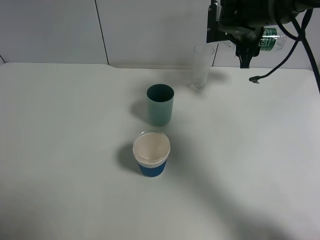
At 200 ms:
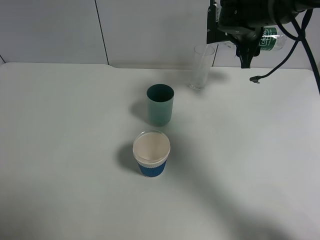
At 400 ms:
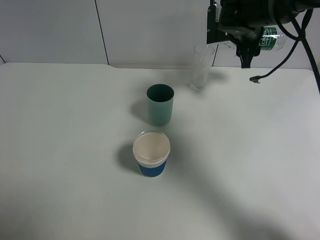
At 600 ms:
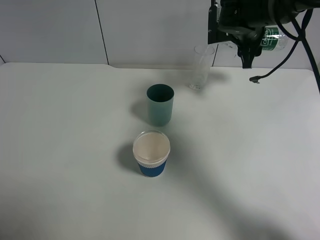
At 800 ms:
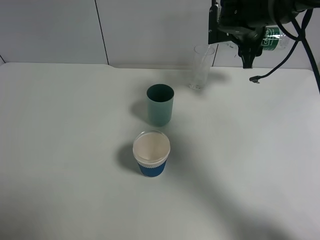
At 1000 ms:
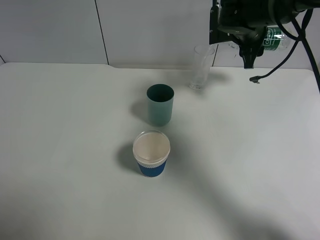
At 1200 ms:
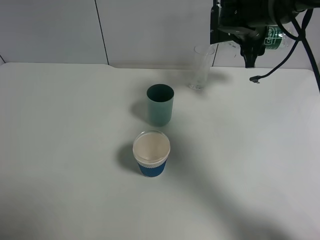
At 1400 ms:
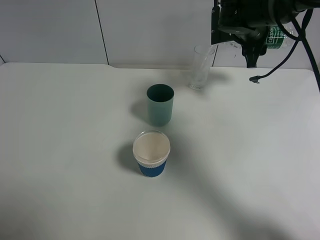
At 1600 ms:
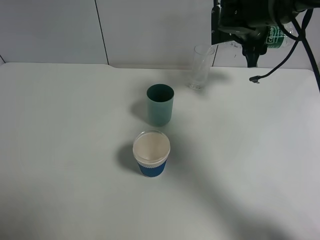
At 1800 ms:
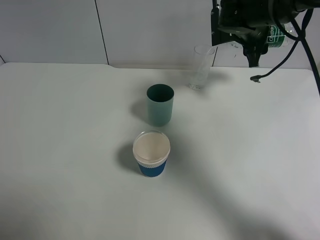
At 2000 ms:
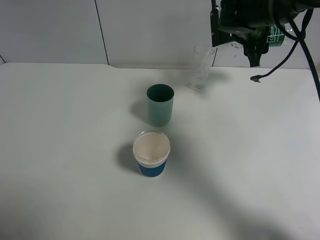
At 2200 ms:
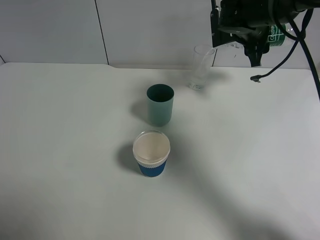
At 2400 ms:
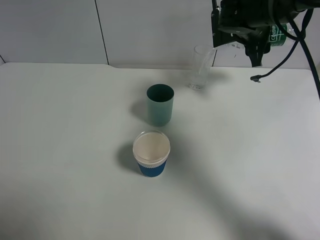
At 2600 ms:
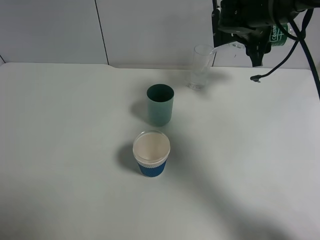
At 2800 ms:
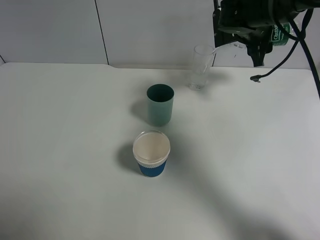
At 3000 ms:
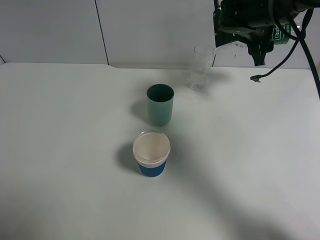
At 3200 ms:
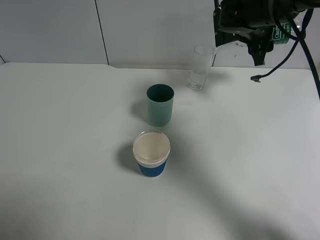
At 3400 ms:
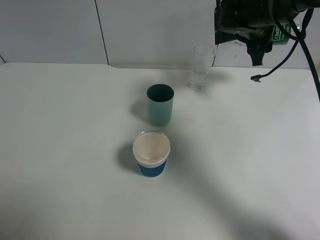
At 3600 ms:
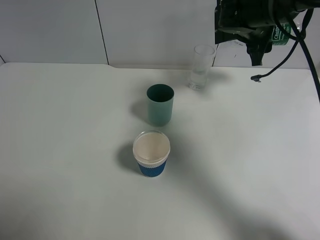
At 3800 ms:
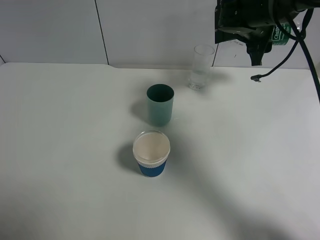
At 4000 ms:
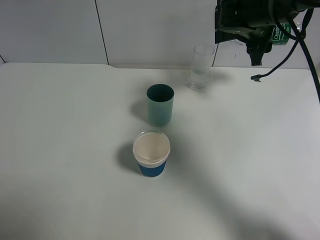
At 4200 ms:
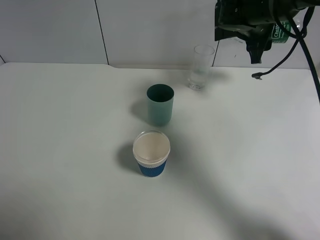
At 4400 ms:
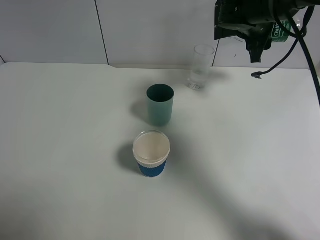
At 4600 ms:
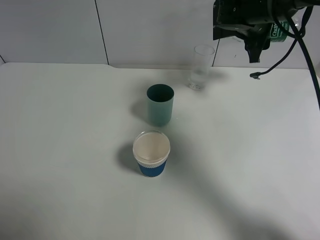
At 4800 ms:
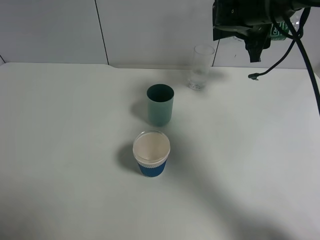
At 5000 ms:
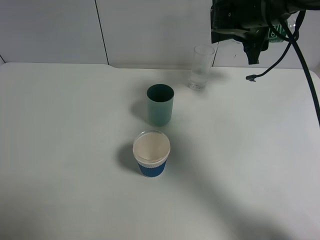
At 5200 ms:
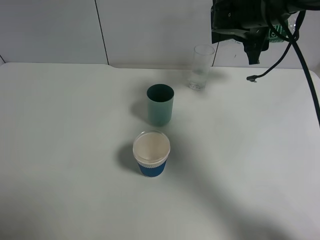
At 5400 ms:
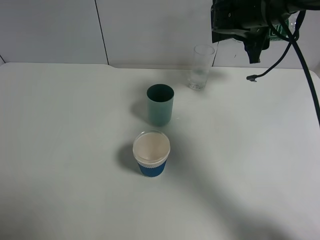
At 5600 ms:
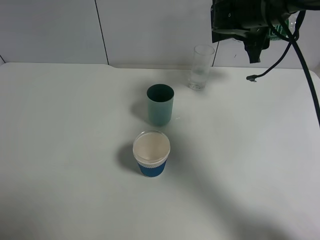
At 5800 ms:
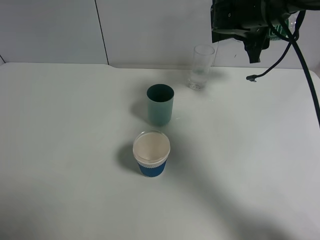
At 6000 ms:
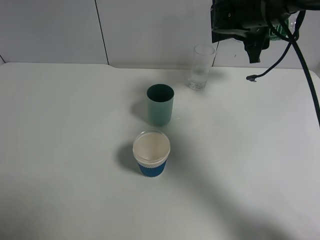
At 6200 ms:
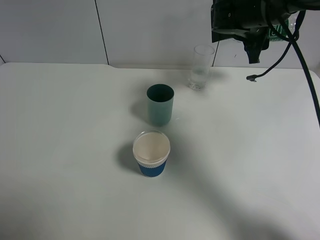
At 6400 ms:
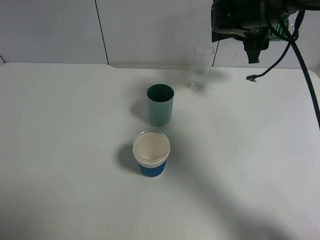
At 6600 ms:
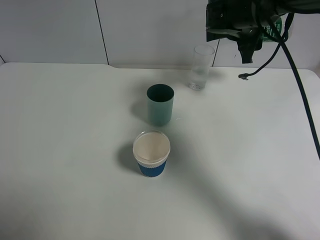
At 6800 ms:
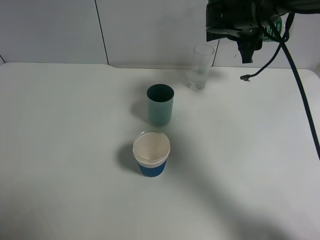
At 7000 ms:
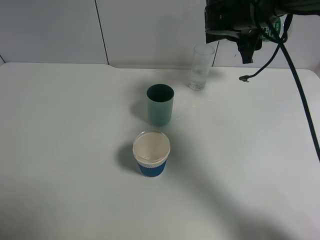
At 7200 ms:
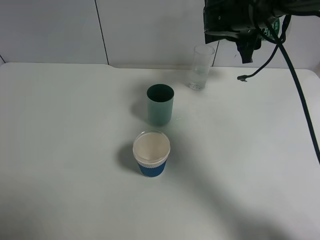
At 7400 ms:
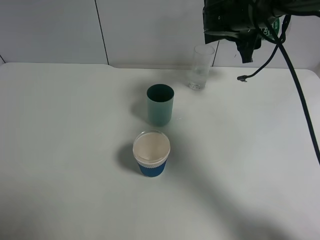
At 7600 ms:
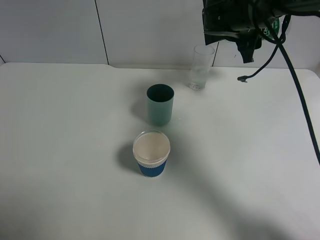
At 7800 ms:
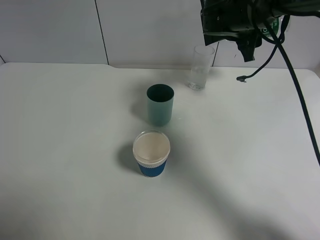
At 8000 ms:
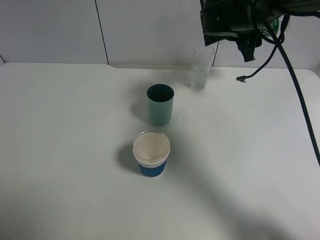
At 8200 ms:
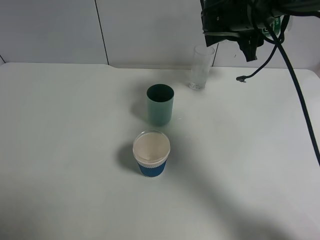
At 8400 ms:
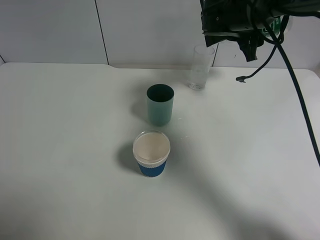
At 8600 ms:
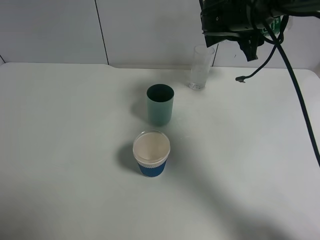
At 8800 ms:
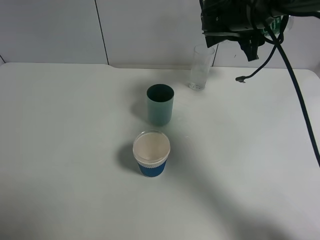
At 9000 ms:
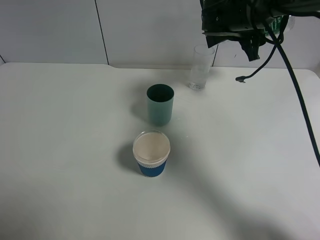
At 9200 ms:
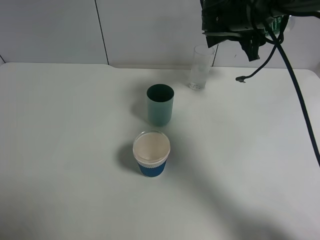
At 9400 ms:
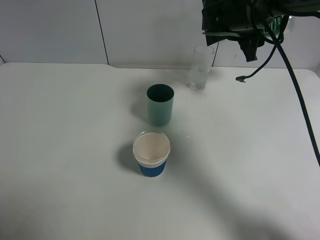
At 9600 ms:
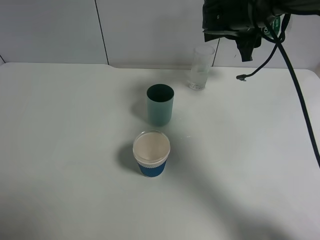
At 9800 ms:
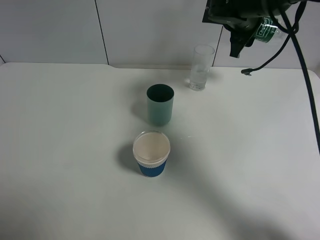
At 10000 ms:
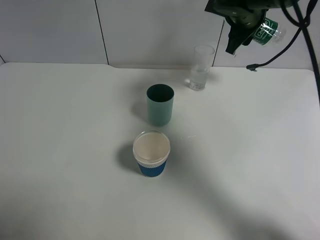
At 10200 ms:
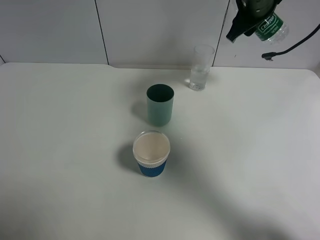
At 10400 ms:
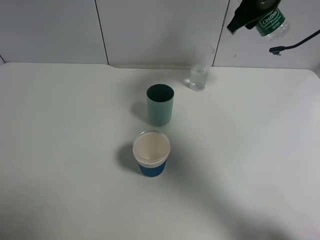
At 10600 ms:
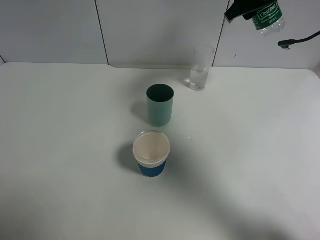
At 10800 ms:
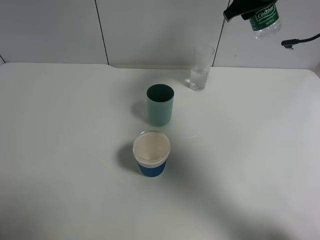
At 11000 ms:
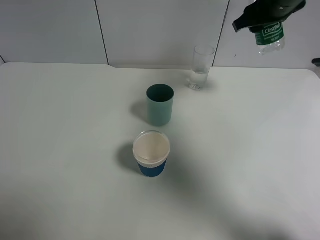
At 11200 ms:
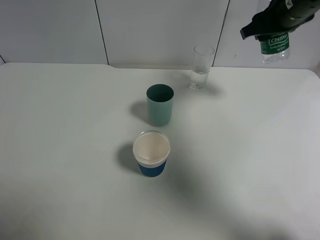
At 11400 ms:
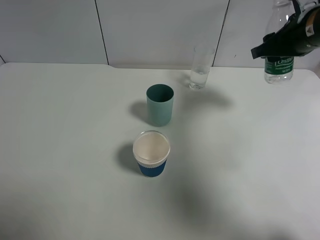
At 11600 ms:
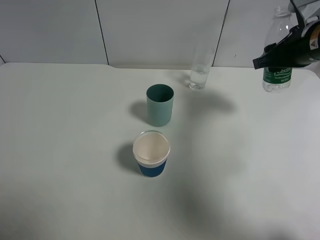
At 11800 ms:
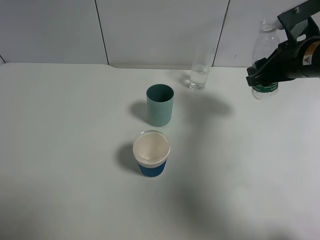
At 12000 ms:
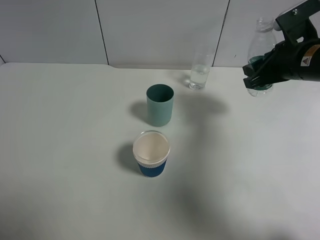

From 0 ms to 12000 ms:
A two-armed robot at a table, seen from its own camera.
Task of the whole recording: use a gripper to hold the bottle of the drink and pour it into a random cup.
Step, from 0 ms to 10800 ms: Pour the mineral water into the glass with the right gripper.
From 0 ms to 4400 ms: The grippers stay close to where they were, moving slightly.
From 4400 ms to 6000 ms: Both grippers stay put.
From 6000 ms to 9000 ms: The grippers move only a little.
From 9000 ms to 10400 ms: The right gripper goes about 10 cm upward.
From 10400 ms to 12000 ms: The right gripper is displaced backward, downward and to the right by about 15 cm.

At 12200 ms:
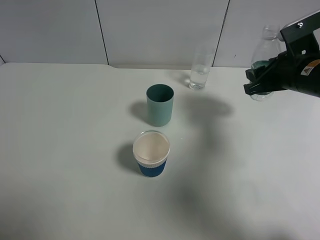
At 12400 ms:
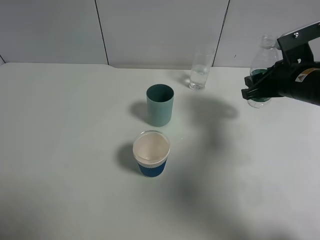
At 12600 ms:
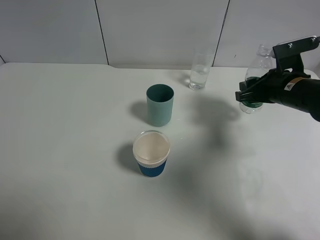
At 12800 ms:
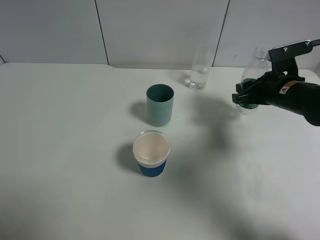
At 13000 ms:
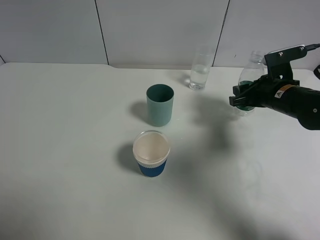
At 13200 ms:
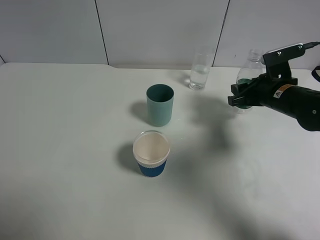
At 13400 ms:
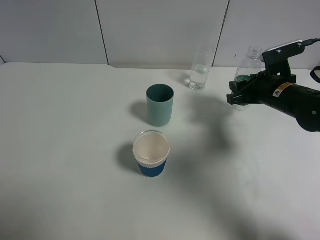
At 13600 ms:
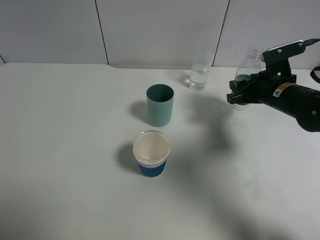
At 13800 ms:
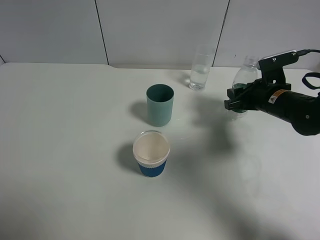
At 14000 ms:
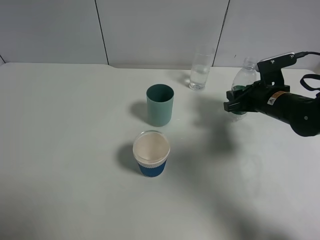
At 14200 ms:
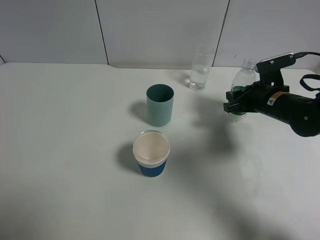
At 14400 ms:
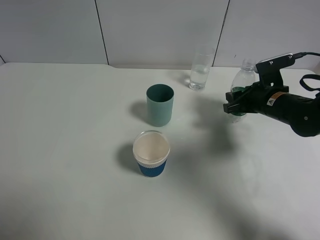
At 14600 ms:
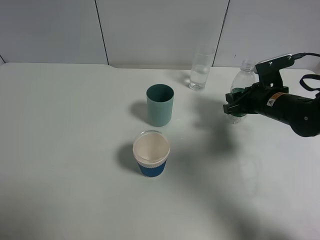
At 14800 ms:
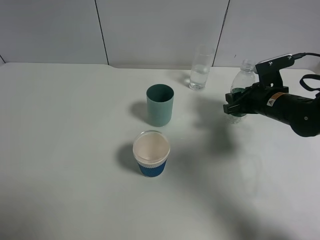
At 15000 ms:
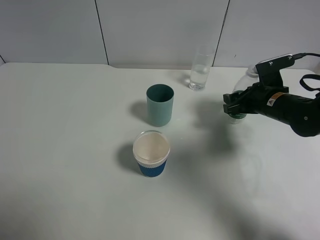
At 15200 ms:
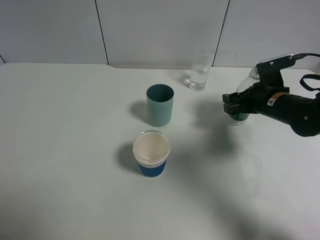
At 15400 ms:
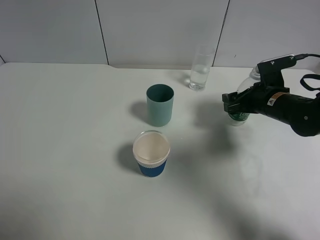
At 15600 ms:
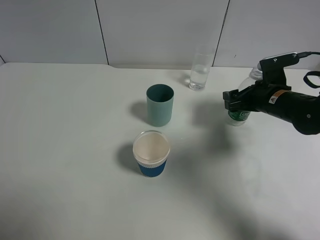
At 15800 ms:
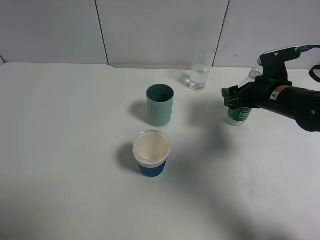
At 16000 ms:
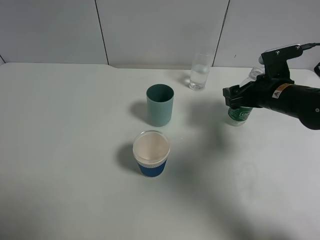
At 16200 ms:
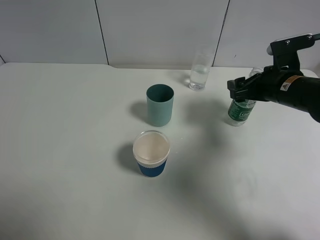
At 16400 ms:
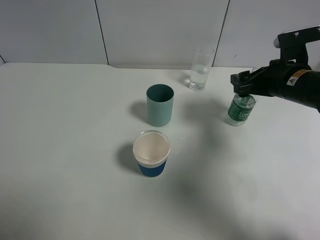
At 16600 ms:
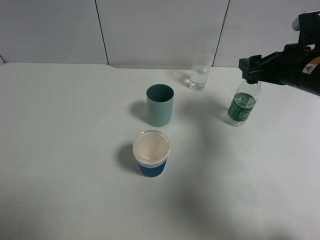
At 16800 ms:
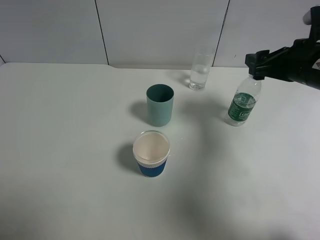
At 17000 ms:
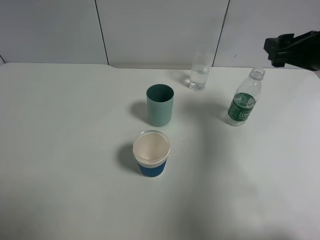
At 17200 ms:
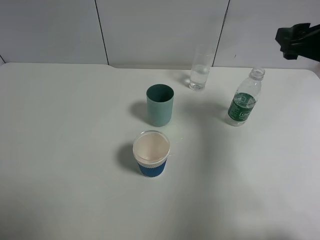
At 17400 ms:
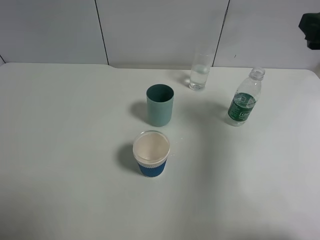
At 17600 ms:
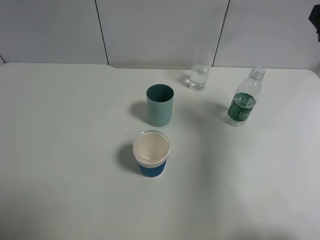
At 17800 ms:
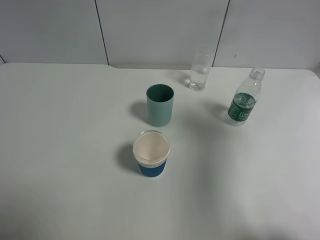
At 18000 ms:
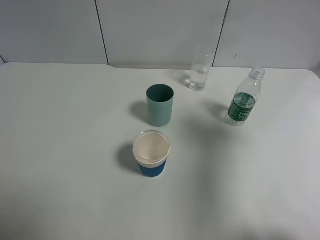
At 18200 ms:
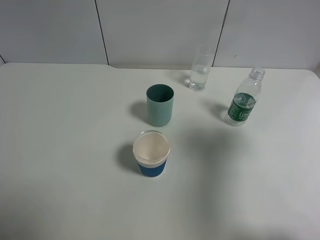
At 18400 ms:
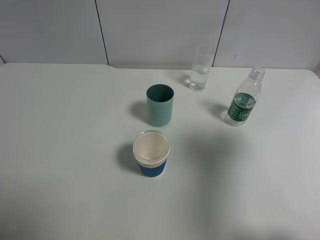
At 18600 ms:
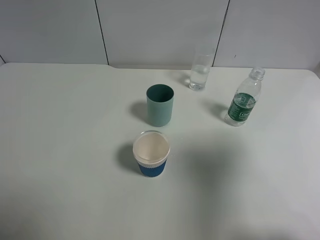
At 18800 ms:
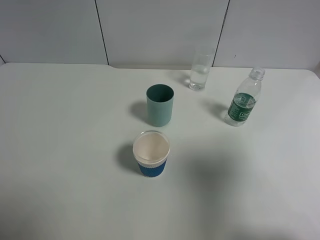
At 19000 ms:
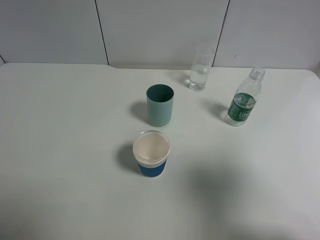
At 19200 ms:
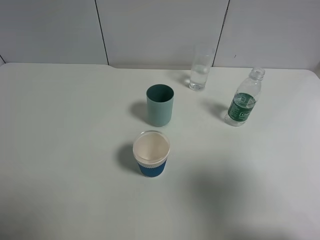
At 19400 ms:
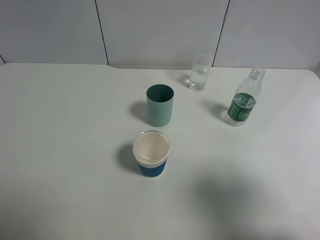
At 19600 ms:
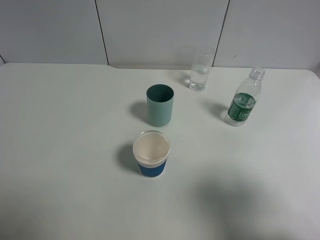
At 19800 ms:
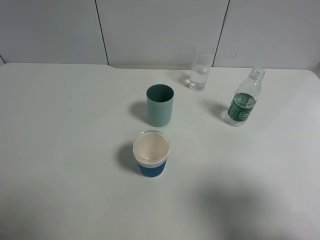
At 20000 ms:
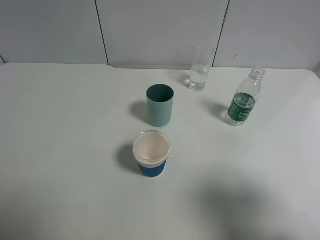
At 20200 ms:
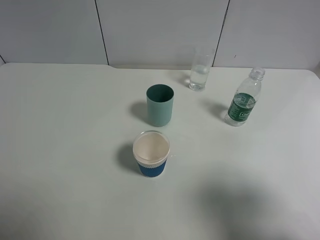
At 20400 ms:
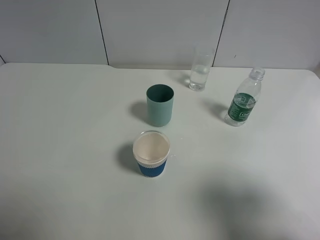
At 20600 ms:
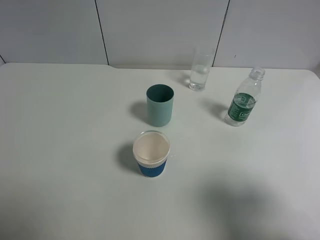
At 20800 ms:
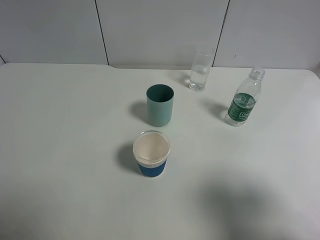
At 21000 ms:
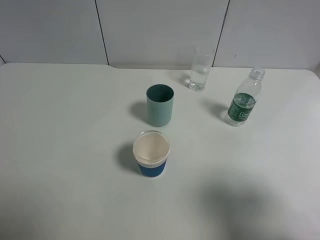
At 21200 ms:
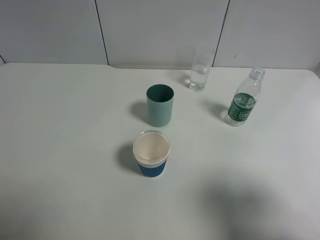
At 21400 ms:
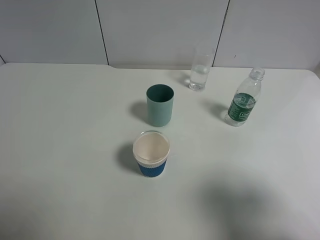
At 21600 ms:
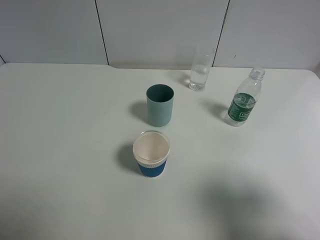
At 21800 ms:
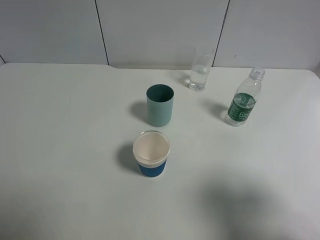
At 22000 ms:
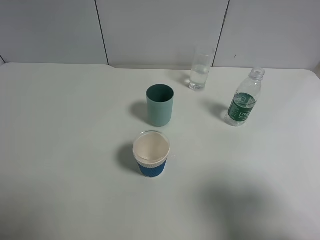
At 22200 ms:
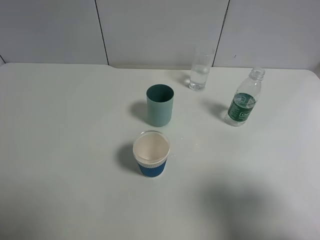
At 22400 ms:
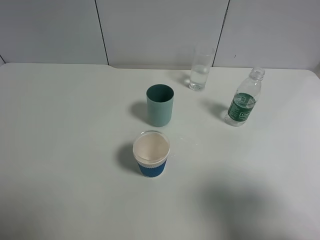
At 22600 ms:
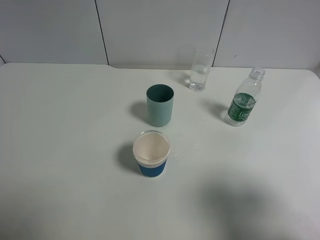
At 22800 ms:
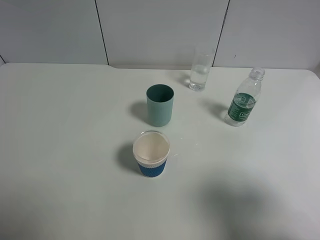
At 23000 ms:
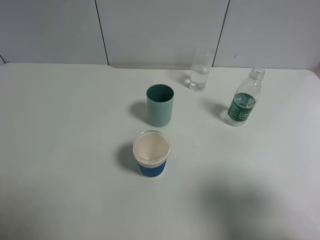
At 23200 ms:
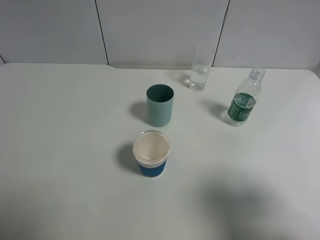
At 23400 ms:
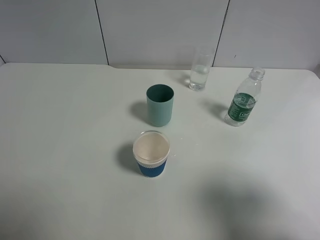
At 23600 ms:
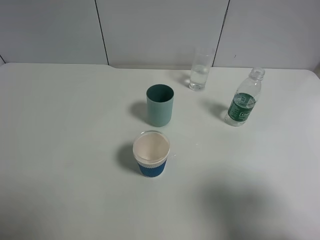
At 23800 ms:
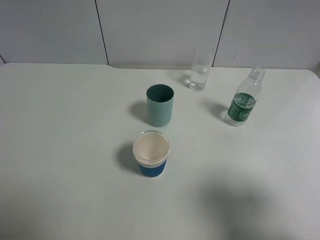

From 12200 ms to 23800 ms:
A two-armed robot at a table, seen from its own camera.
Task of the whole recording: use a gripper to hold the bottle of the drink and pour it into a random cup.
Step, from 12200 ms to 16400 ms: Place the mineral water bottle on the table with the right gripper.
From 12200 ms to 13600 ms: The right gripper travels downward by roughly 5 cm.
From 13600 ms to 15000 ms: The right gripper opens.
From 15000 ms to 16600 ms: The right gripper goes about 10 cm upward.
From 16600 ms to 18000 ms: The right gripper shifts about 15 cm backward and upward.
From 18000 ms to 19400 ms: The right gripper shifts about 15 cm backward.
From 21000 ms to 23800 ms: Both grippers stay put.
